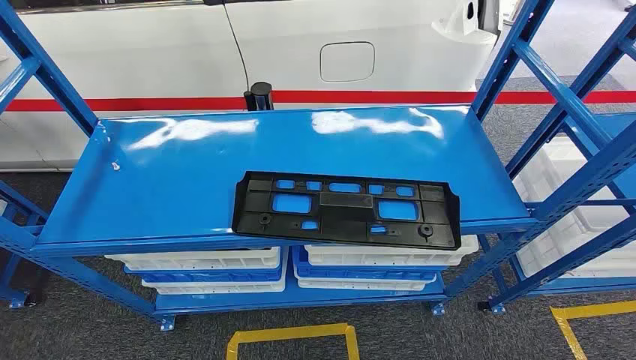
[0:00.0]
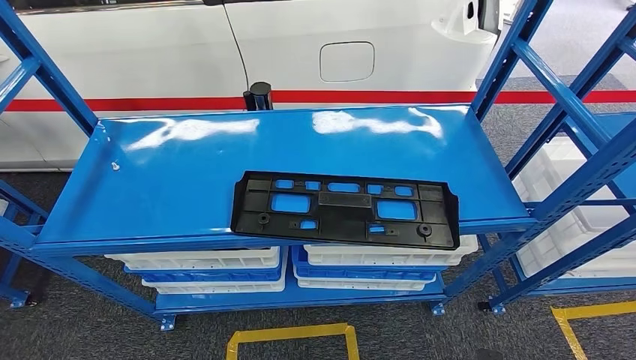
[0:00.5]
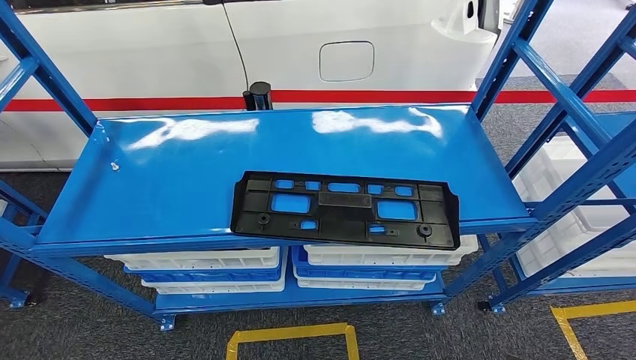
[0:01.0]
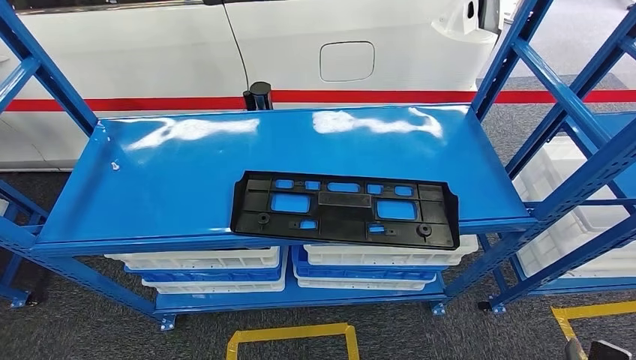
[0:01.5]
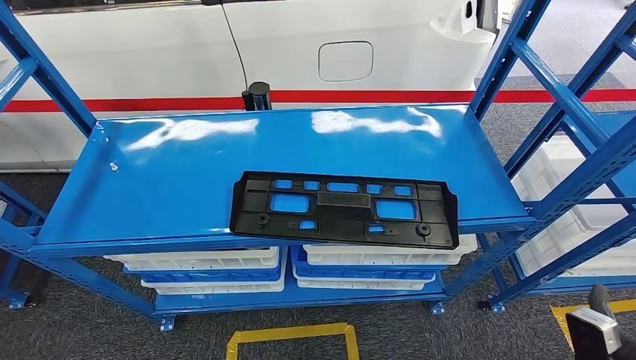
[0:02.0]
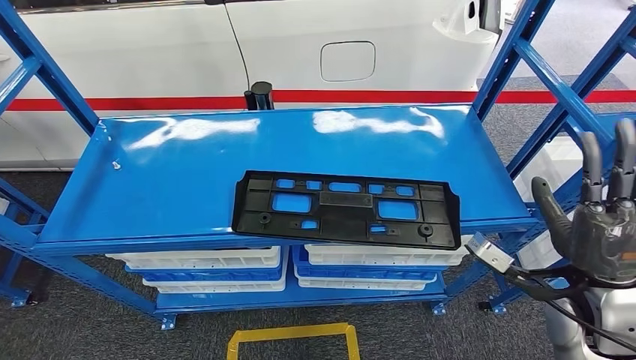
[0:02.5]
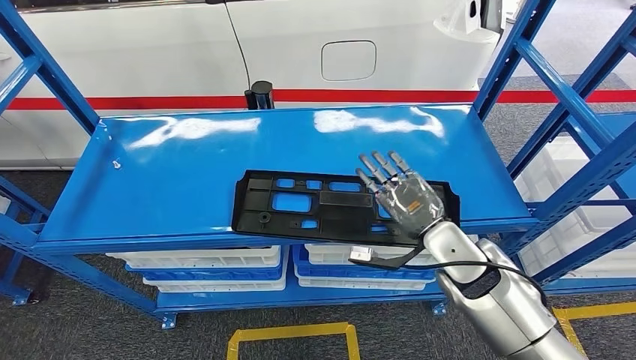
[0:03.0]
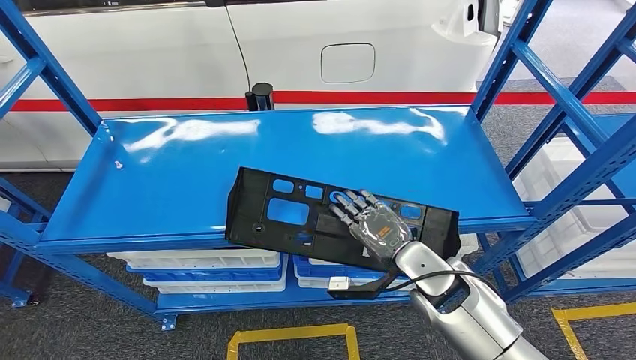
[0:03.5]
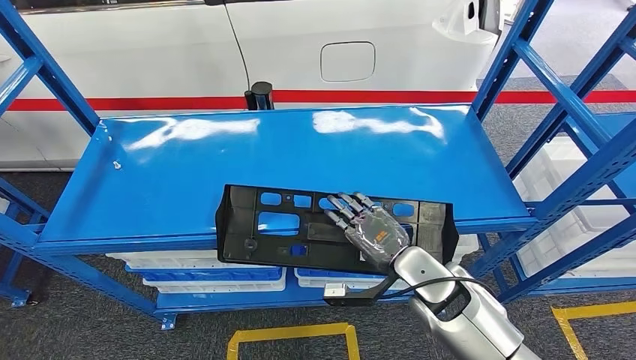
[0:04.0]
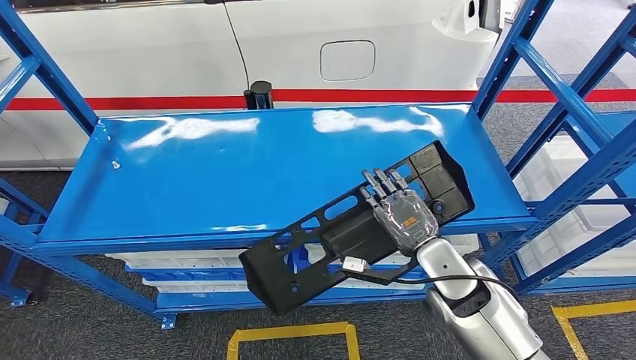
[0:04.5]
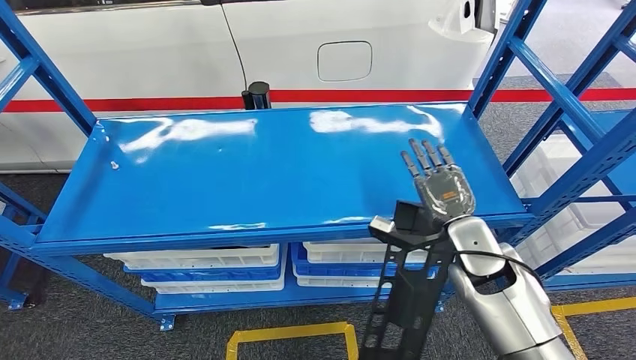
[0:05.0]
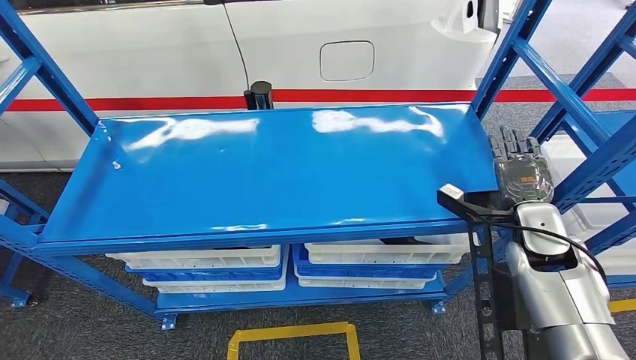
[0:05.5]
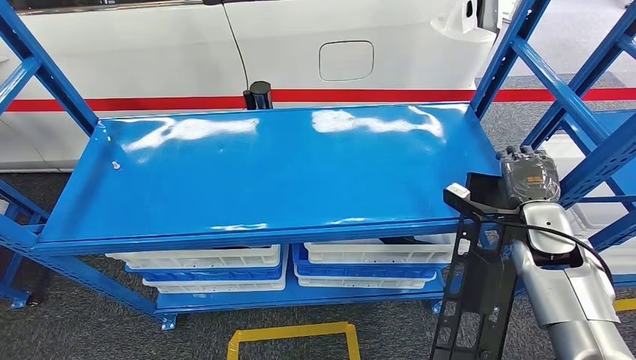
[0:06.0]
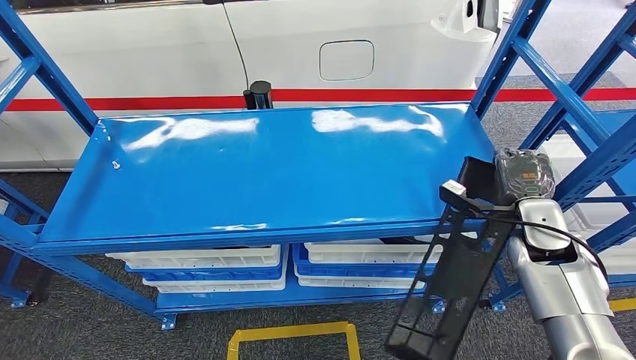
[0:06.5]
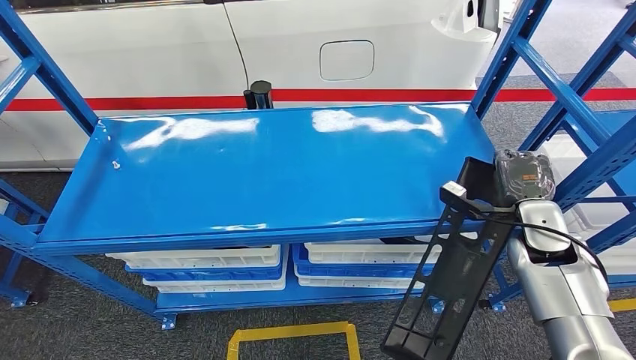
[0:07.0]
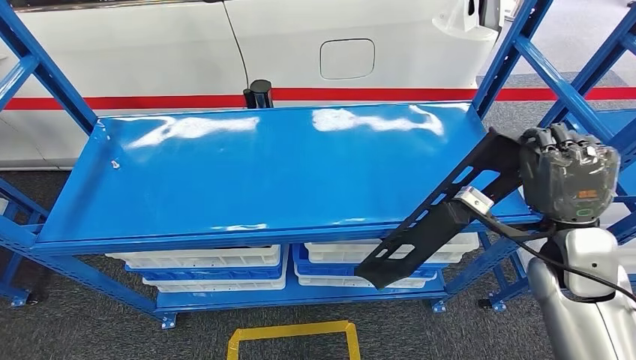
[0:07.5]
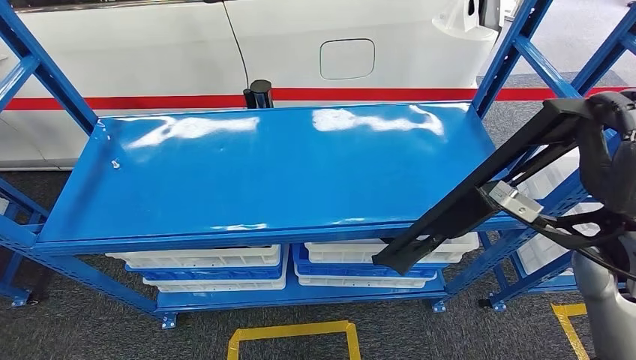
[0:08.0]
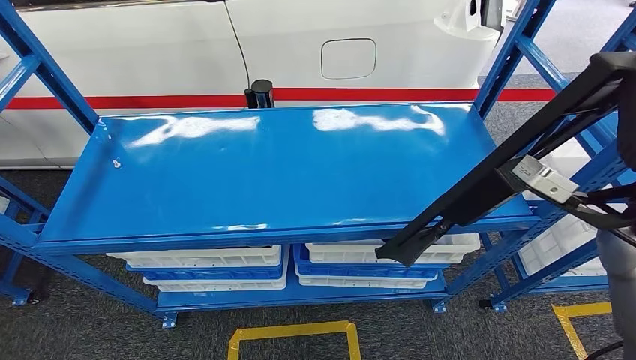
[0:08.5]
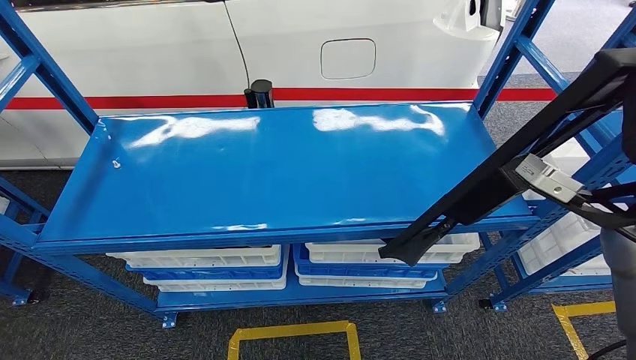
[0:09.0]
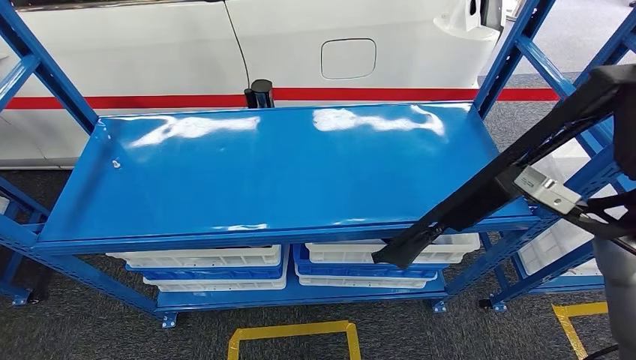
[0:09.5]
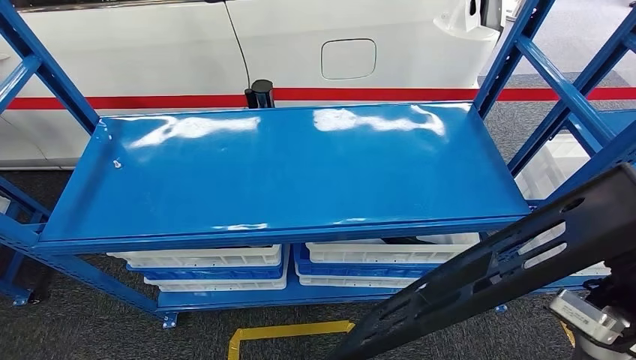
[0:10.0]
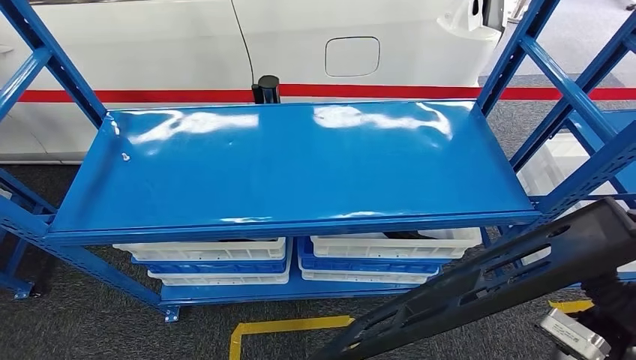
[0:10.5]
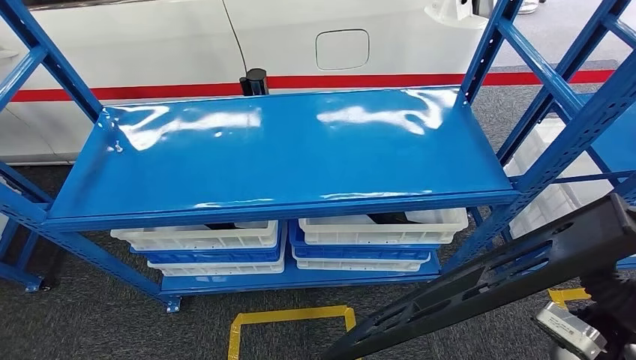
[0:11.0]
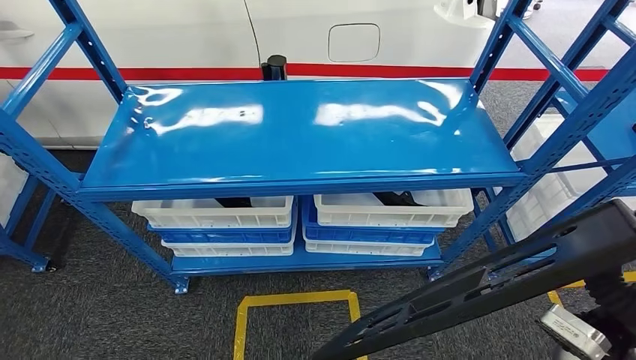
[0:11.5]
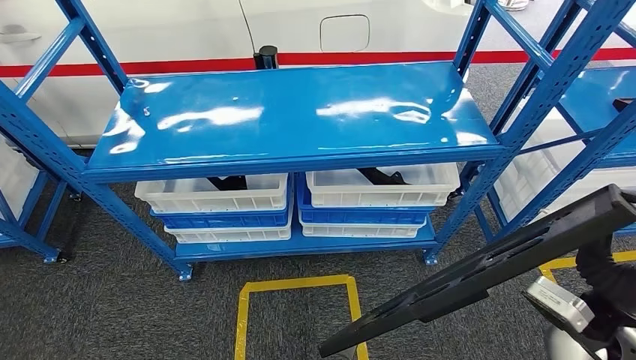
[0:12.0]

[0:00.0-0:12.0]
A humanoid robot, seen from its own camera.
Step, 0:00.0 to 0:07.0: Pick up the large material from the shelf.
0:02.0 to 0:04.0: The right hand moves to the left and forward, some 30 cm.
0:08.0 to 0:10.0: The right hand shifts roughly 5 cm backward, and goes upward and returns, about 10 cm each way.

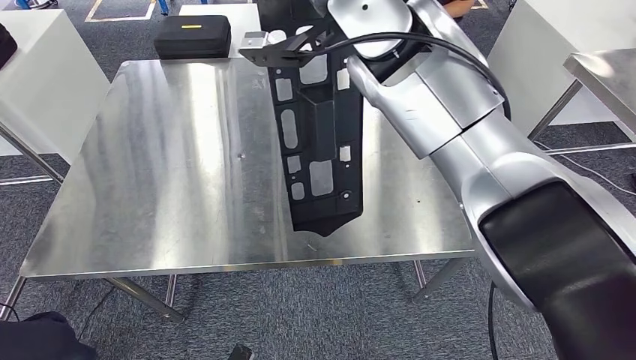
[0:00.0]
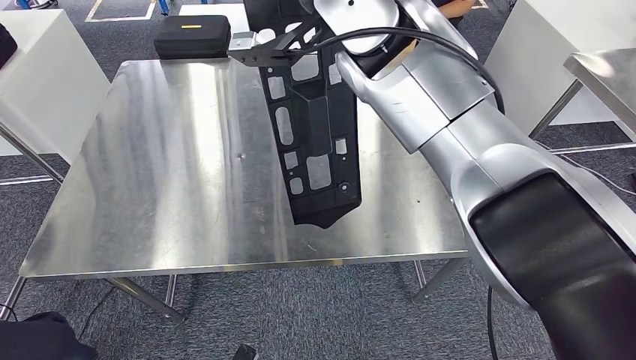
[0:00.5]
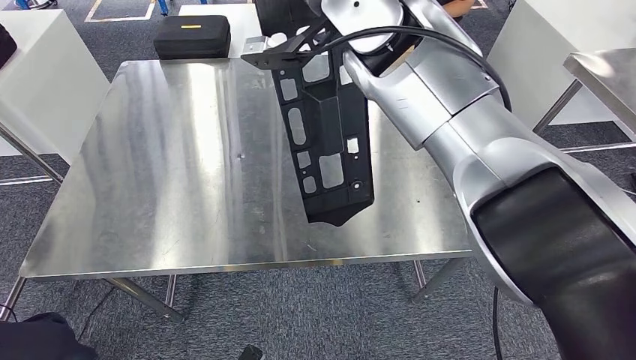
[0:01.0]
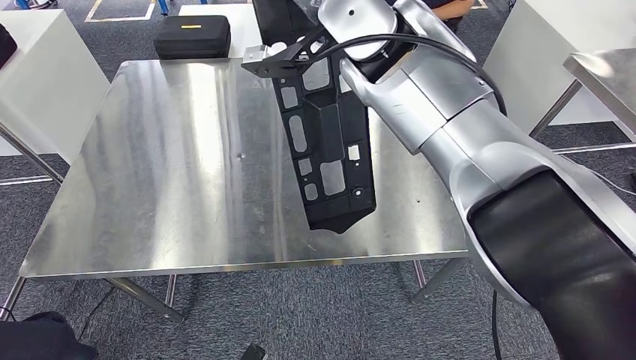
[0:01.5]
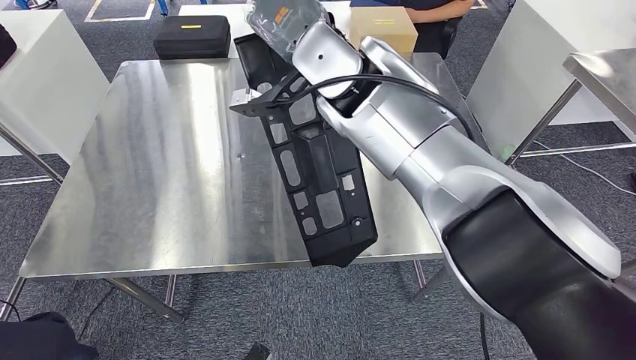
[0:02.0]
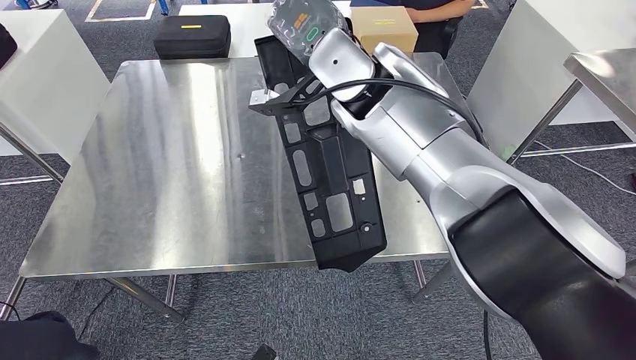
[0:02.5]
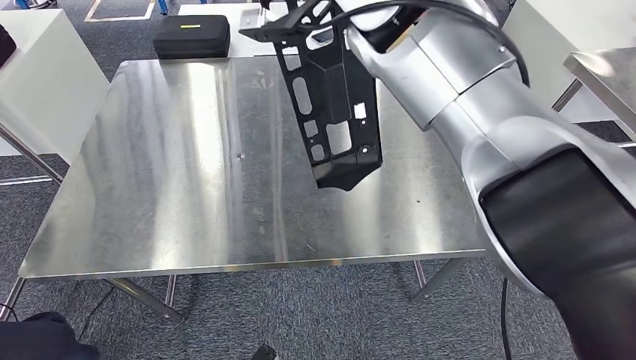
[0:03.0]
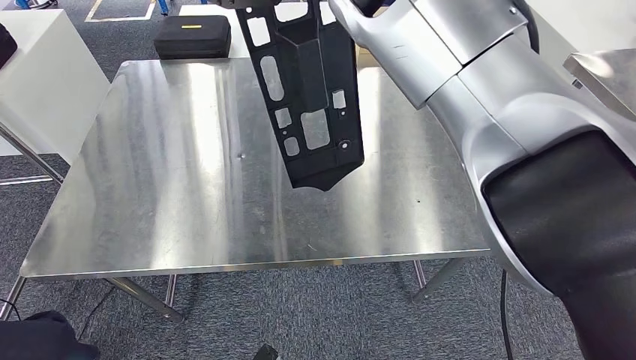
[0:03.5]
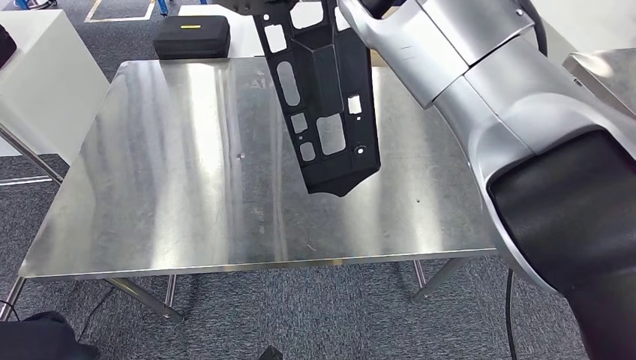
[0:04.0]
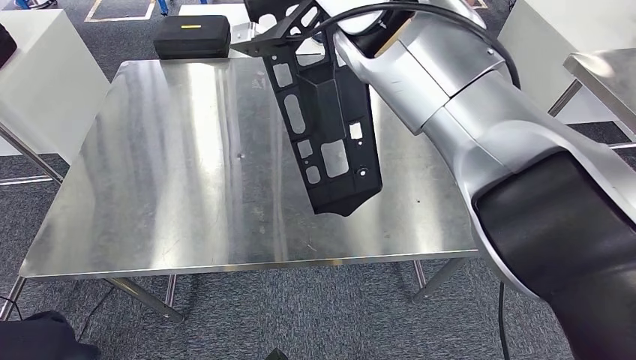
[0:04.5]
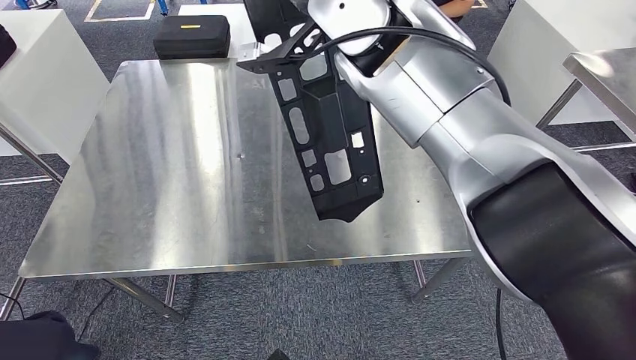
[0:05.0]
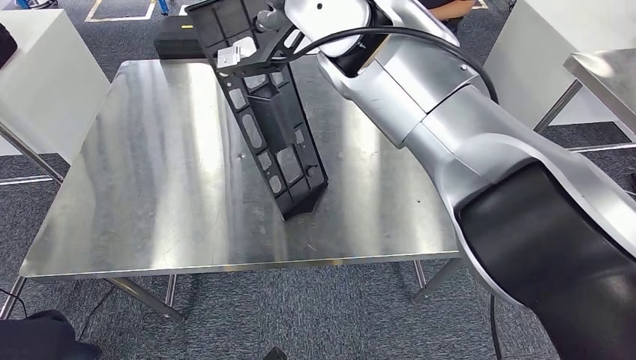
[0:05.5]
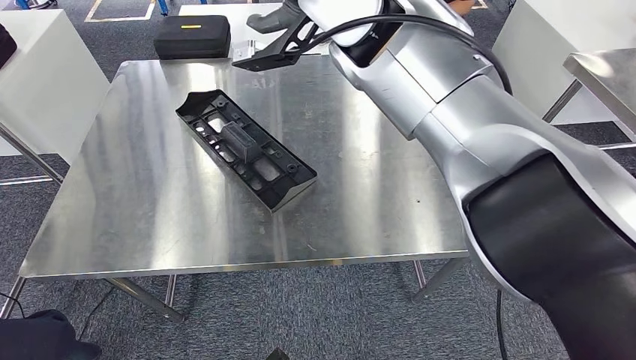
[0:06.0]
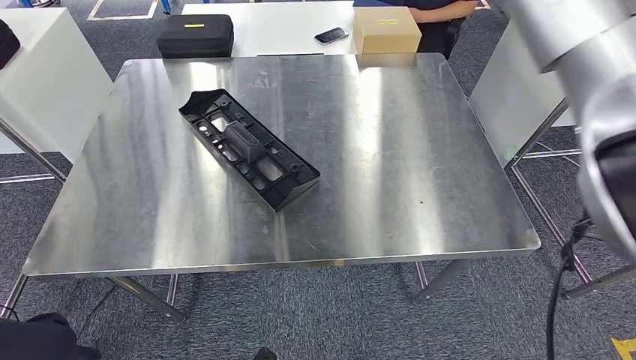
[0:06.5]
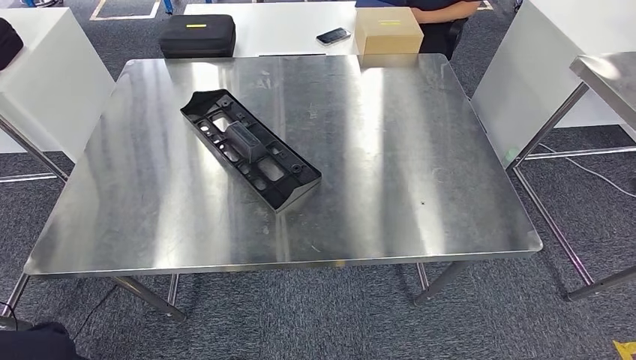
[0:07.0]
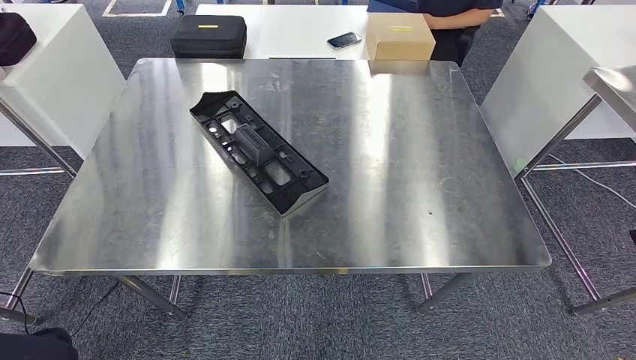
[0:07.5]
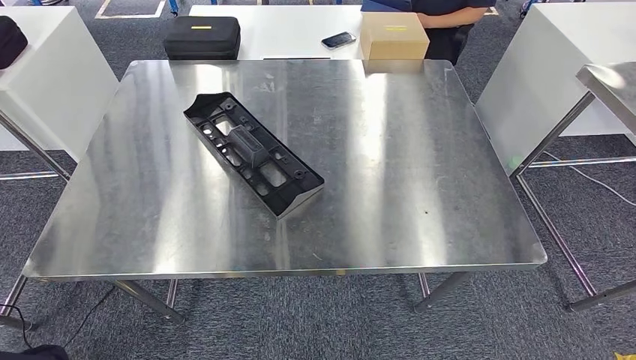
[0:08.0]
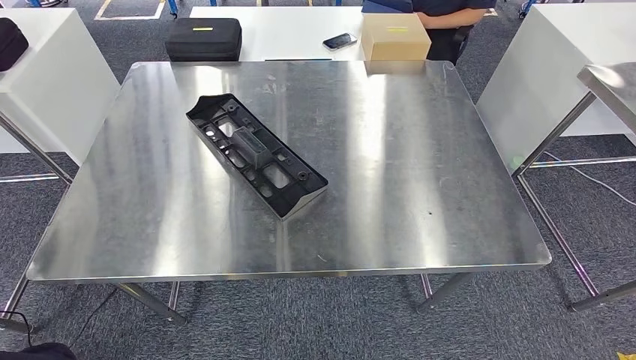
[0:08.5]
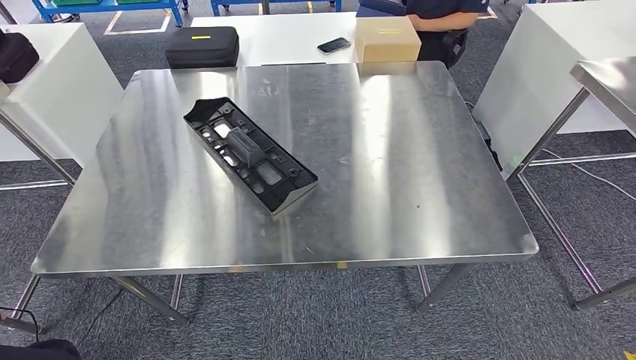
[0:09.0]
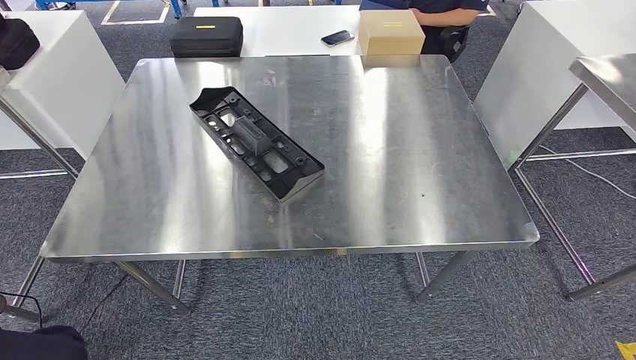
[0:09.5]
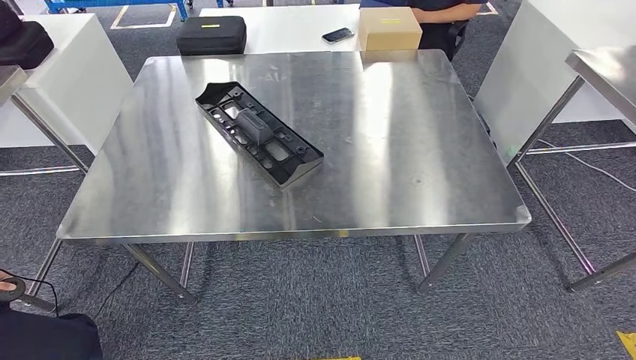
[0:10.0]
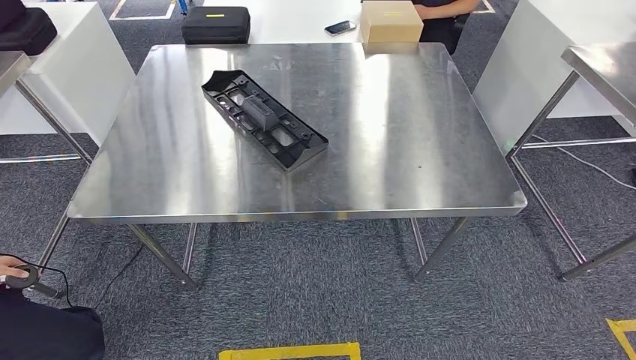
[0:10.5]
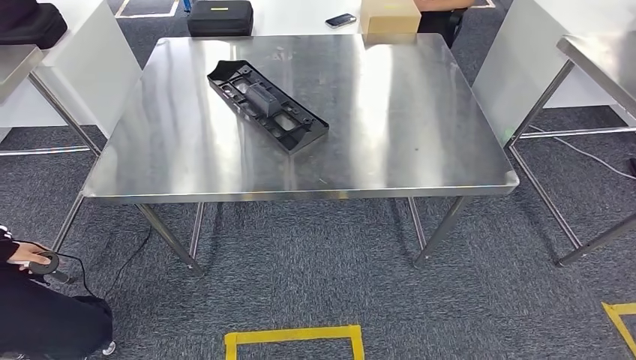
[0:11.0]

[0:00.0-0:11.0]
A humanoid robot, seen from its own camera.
Step, 0:00.0 to 0:07.0: Insert the large material into the corresponding slot on the workbench.
